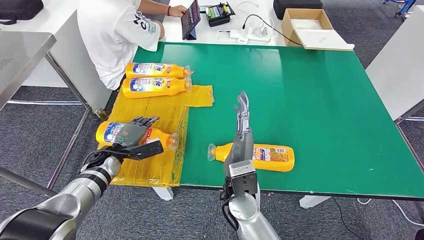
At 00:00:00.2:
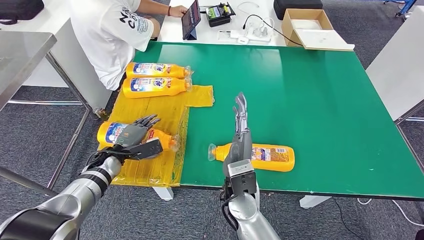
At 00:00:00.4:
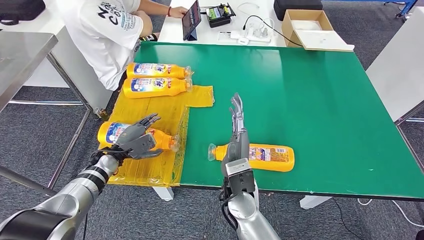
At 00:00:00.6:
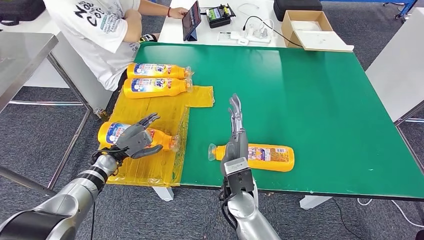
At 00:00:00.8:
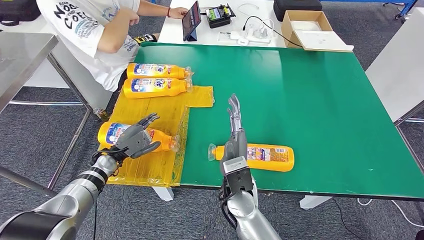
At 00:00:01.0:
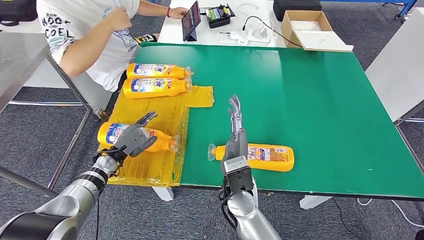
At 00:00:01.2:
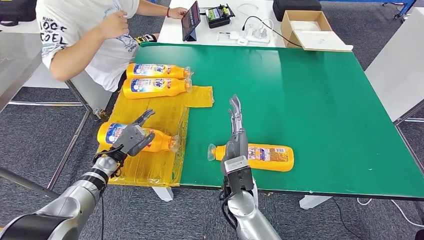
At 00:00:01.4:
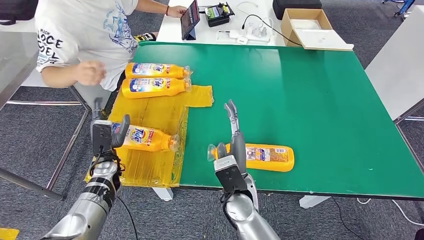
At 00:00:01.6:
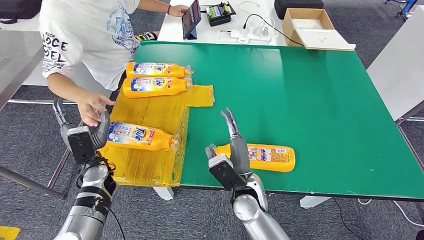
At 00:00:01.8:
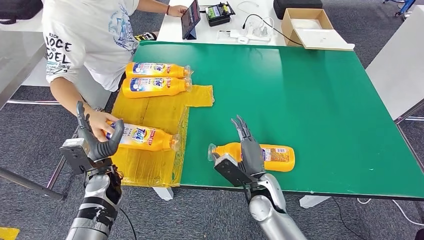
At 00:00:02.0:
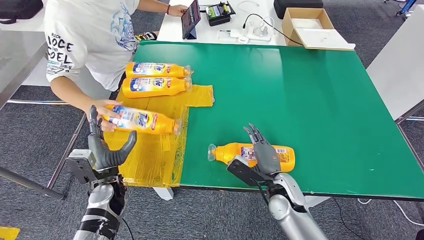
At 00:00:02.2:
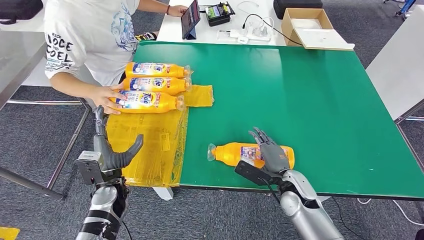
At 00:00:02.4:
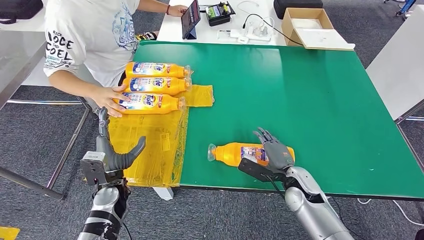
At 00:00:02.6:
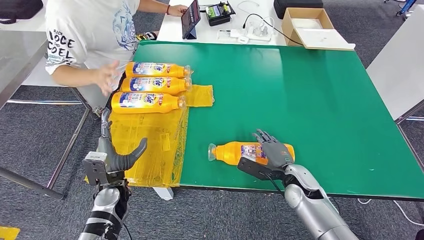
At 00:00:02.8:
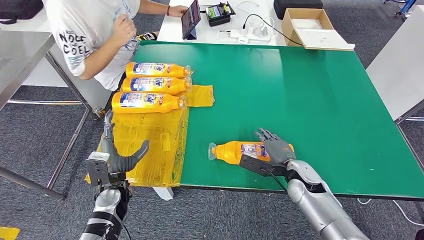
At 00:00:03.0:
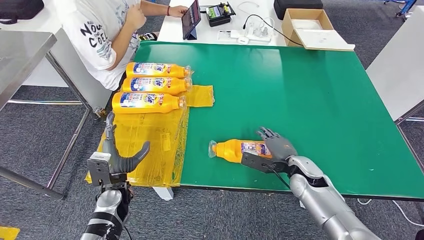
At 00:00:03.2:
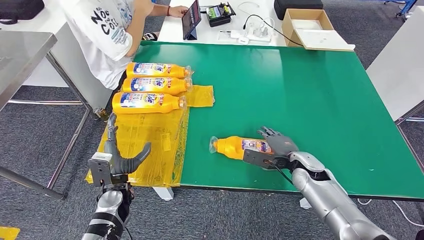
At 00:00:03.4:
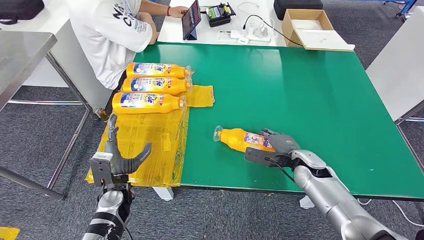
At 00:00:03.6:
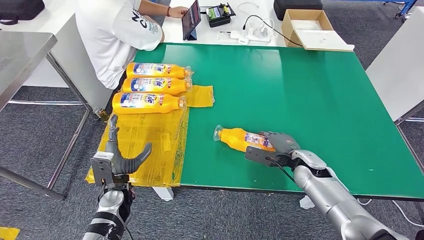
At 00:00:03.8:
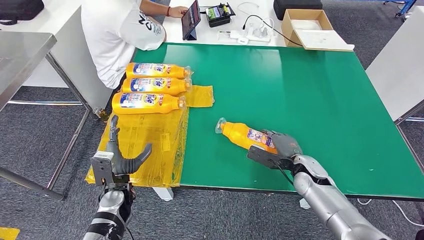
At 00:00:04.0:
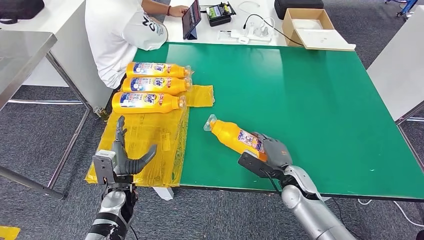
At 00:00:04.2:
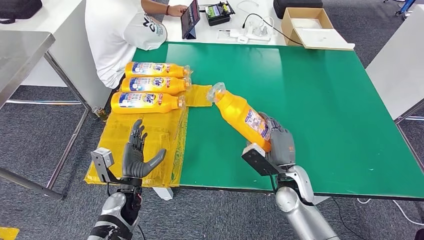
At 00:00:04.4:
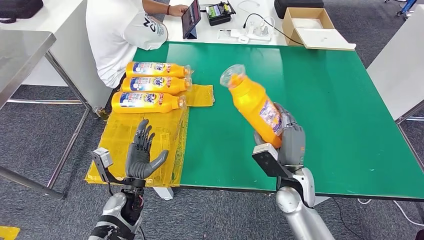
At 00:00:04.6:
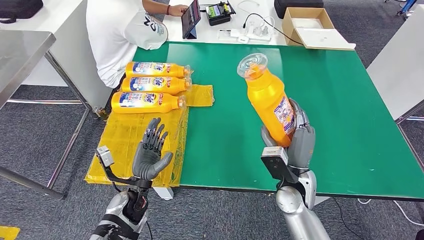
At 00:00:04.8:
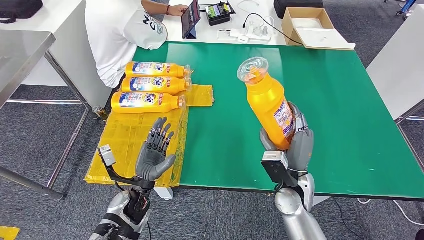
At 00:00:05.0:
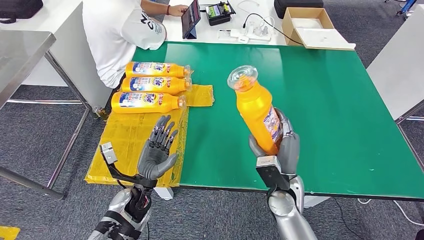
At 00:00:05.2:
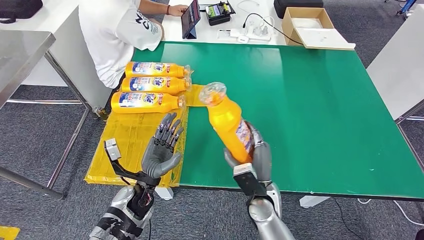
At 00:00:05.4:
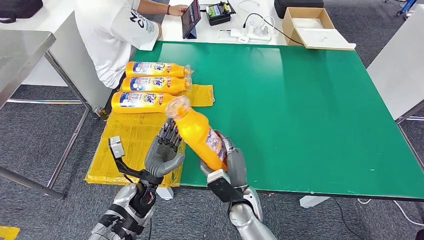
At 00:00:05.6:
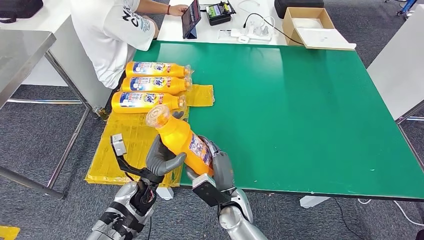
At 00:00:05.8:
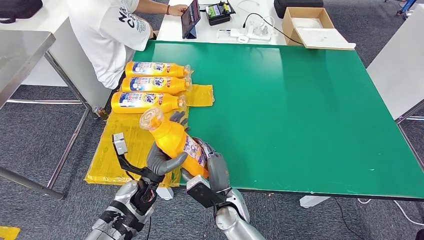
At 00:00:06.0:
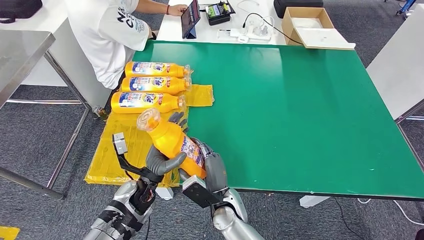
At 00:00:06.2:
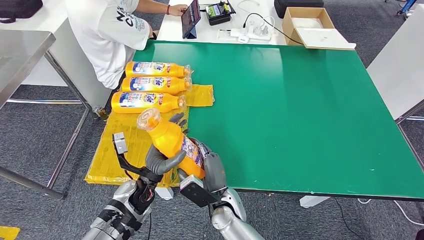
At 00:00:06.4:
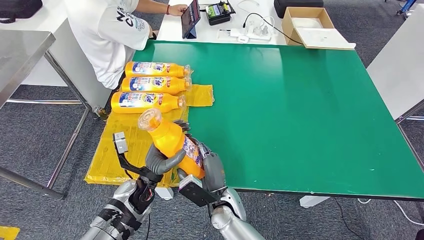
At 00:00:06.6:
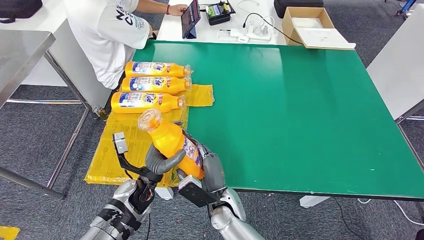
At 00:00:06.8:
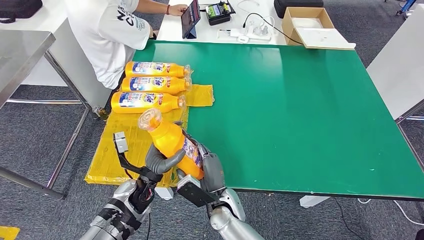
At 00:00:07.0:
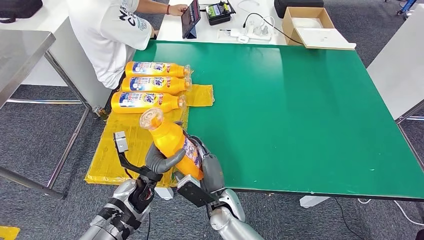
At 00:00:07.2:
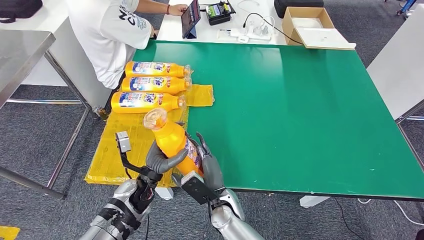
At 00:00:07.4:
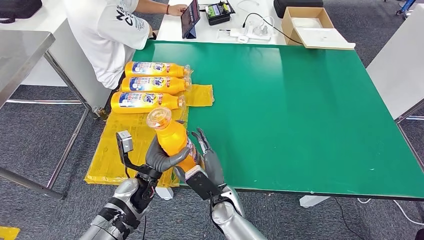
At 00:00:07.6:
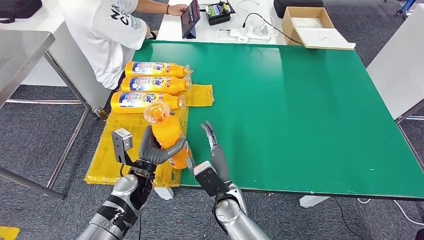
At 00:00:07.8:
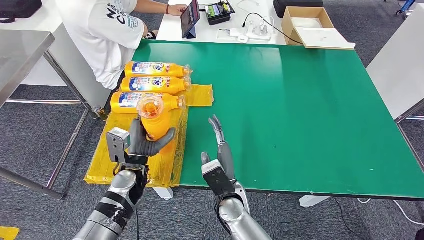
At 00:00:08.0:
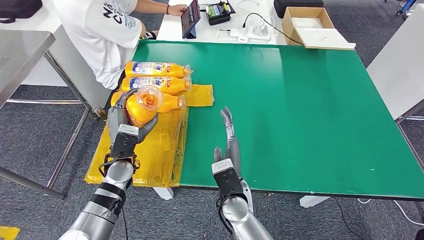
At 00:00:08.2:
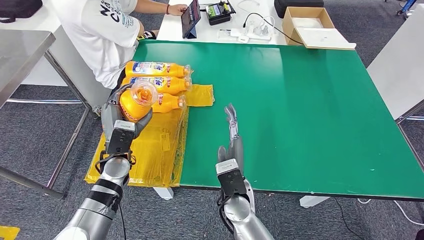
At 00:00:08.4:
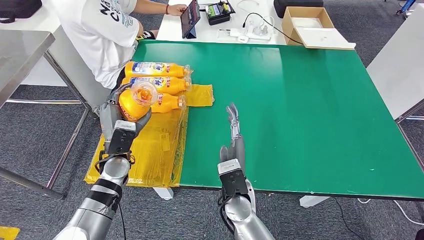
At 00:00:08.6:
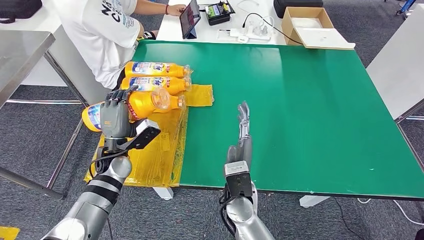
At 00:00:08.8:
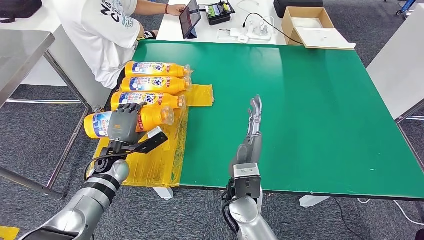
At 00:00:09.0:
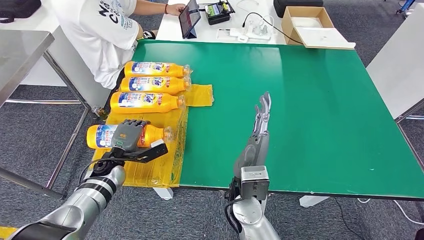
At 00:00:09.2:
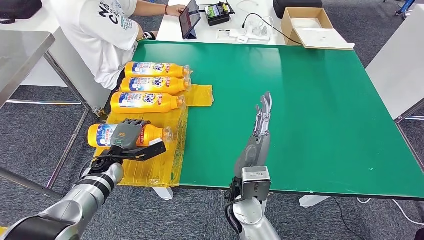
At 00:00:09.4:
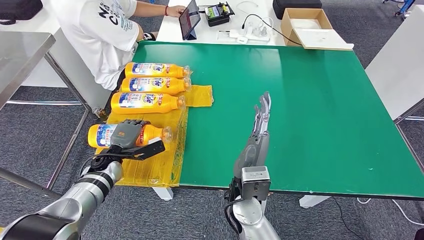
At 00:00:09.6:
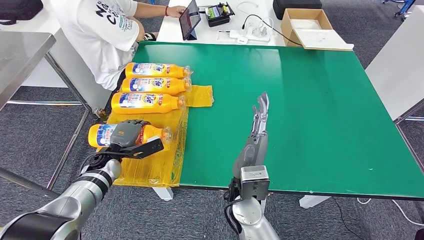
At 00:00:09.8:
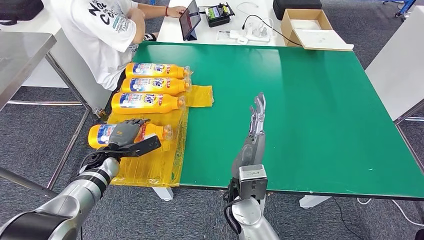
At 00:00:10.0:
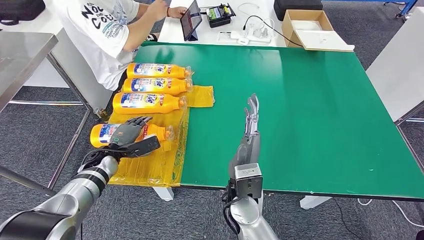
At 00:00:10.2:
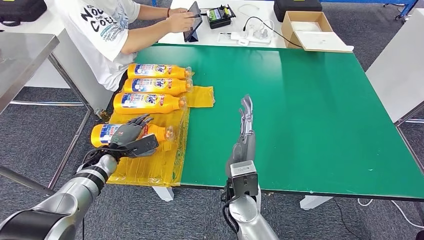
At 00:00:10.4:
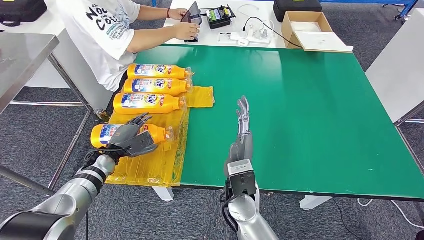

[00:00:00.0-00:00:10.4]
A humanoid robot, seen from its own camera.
Step, 00:00:01.0 to 00:00:05.6: Pick up the fast-moving consumer goods bottle from the table.
Step, 00:00:05.8 to 00:00:10.4: Flip the fast-moving consumer goods bottle to the front side.
00:00:04.4 to 00:00:06.0: The right hand is displaced to the left by some 15 cm.
00:00:06.0 to 00:00:07.4: The hands make only small movements.
00:00:07.4 to 00:00:09.0: The right hand heads upward, covering roughly 10 cm; the left hand goes roughly 15 cm to the left and forward.
